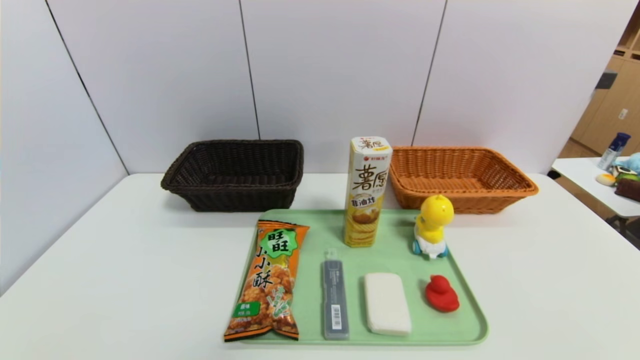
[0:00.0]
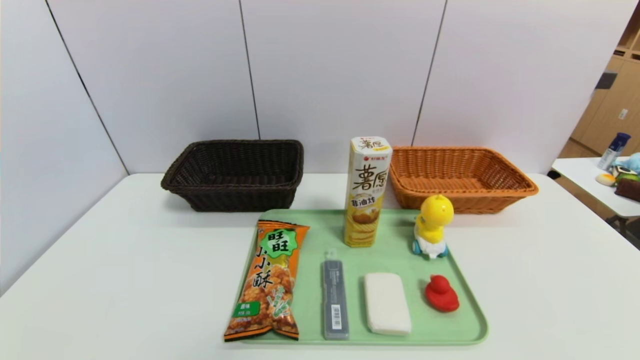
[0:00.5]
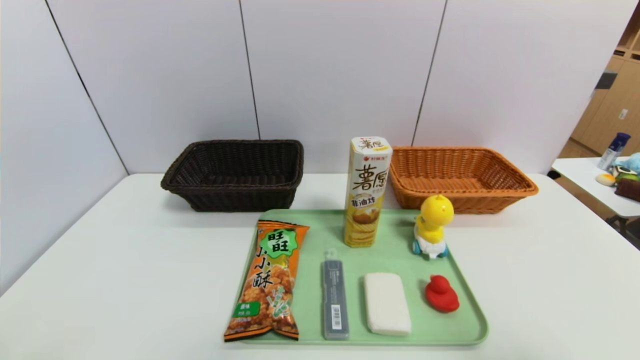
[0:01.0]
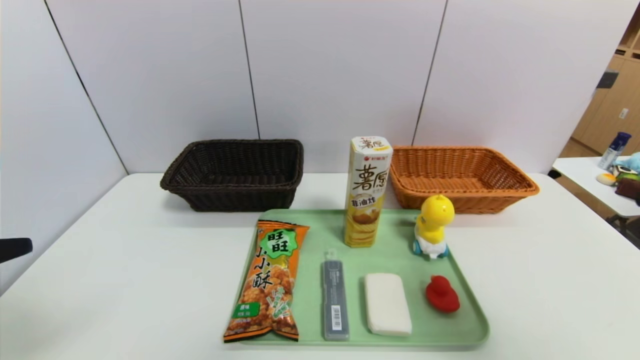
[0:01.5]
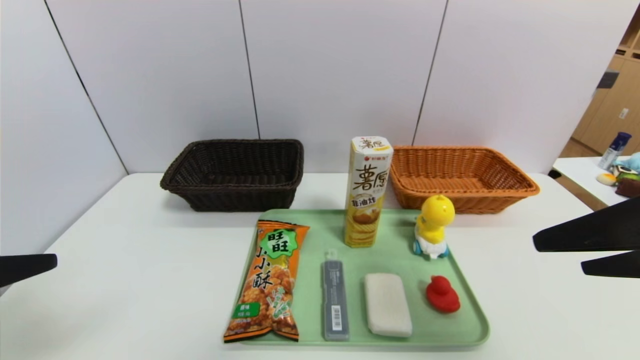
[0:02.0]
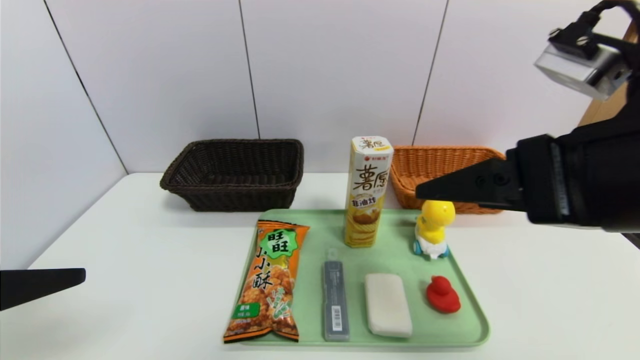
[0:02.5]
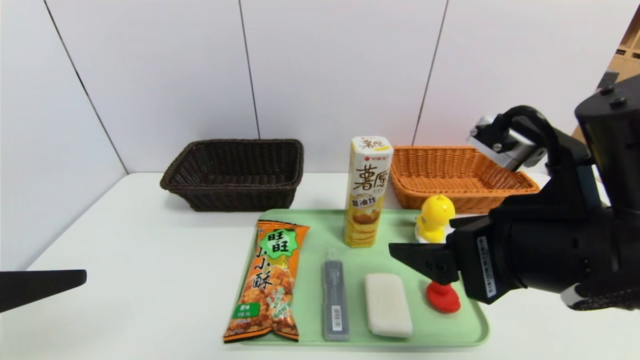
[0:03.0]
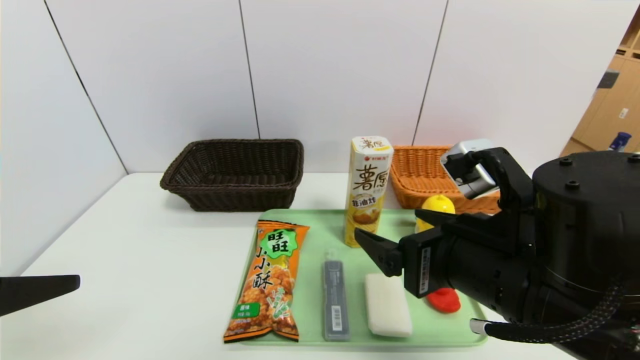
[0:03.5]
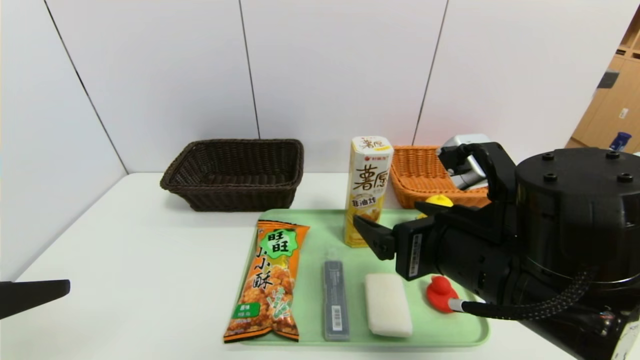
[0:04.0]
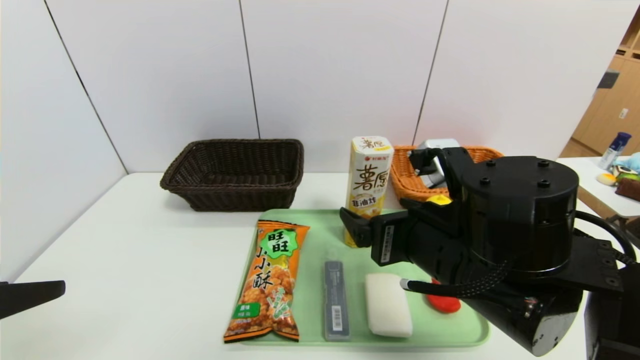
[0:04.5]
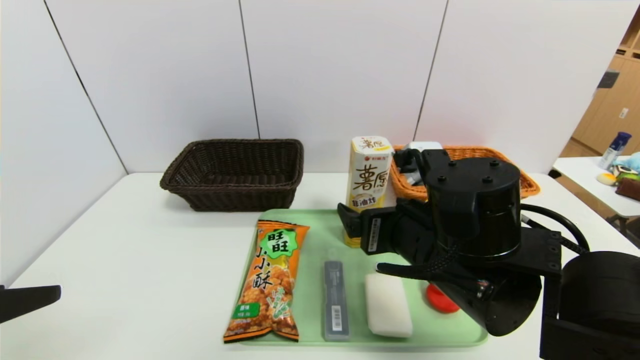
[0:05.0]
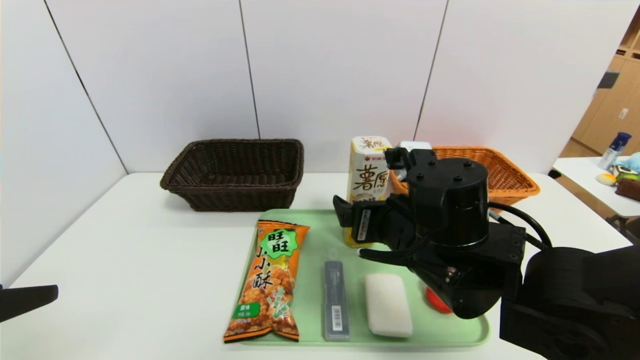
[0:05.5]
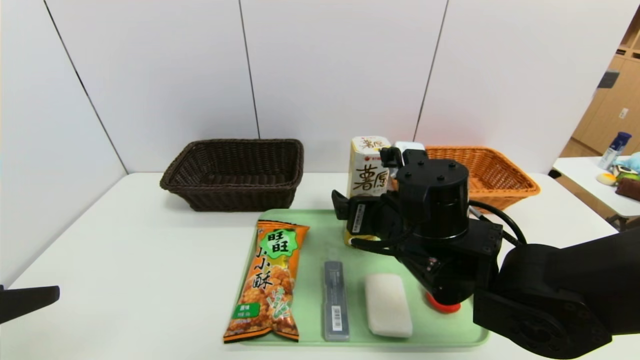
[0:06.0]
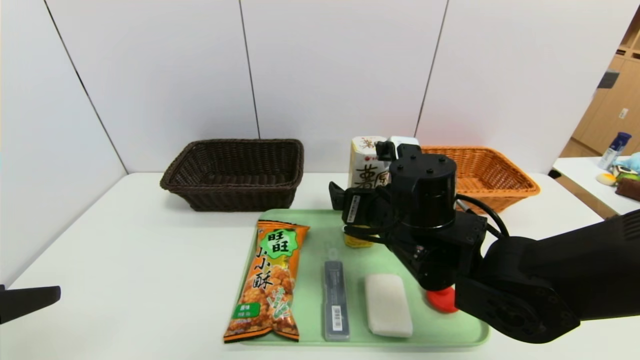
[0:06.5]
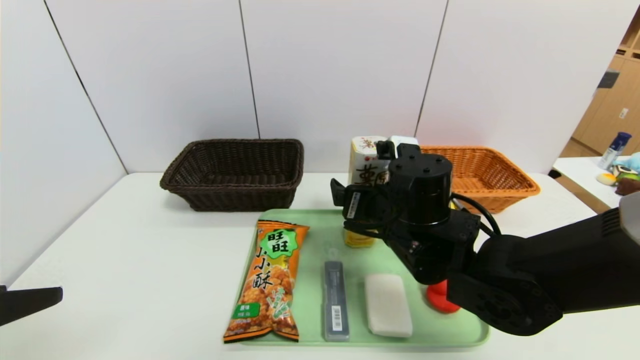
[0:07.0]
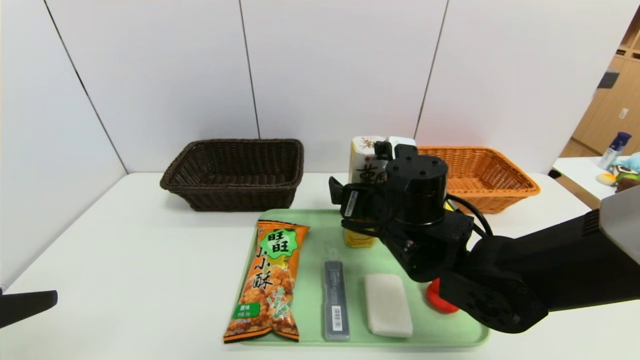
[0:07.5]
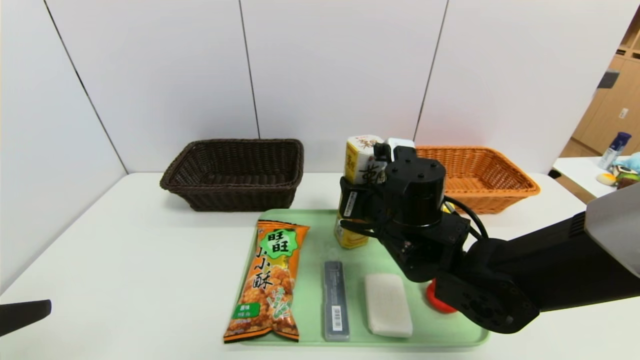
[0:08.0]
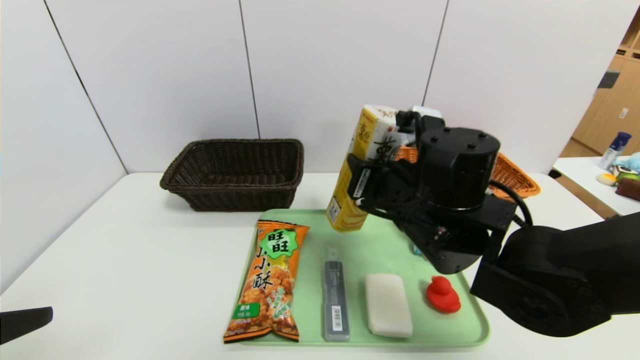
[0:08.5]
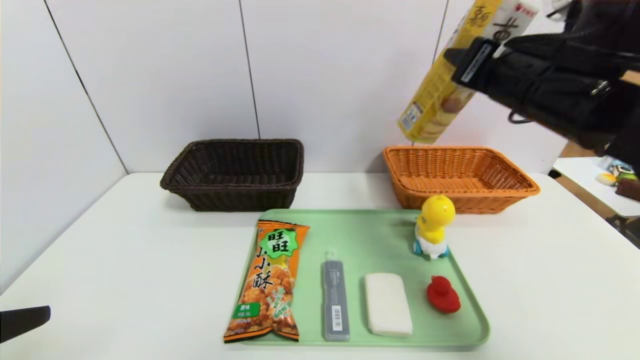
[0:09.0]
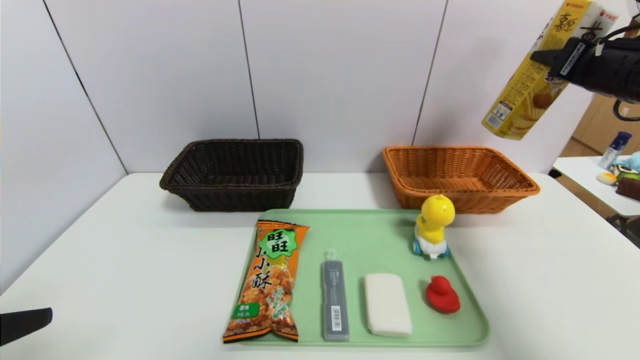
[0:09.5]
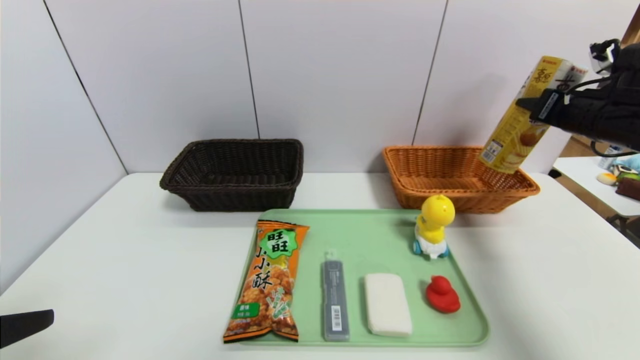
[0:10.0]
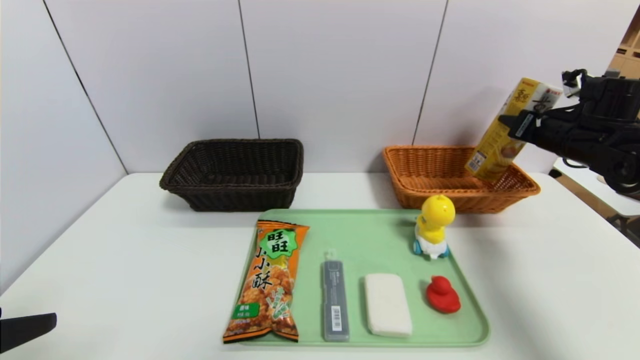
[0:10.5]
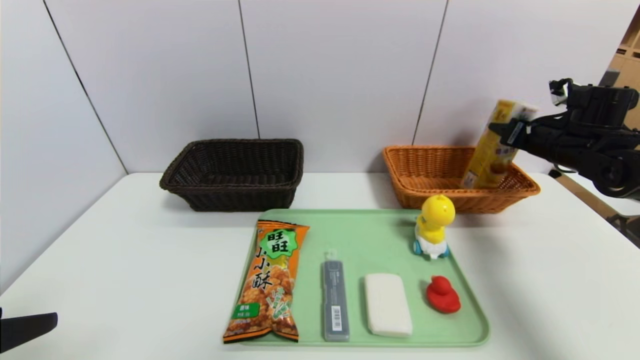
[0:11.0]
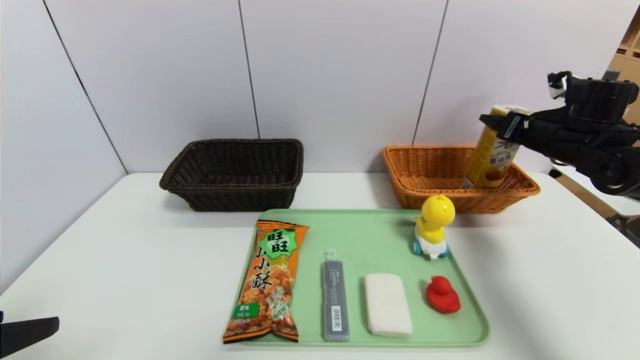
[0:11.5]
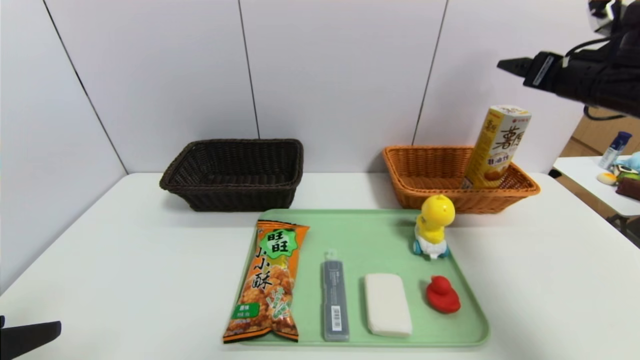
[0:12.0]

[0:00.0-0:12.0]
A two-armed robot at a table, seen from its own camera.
Task of the whole recording: place the food in the right basket with the right gripper, and place the non food items in the left basket with the left gripper.
Step, 0:00.0 to 0:11.0: Grasp the potato chips and put it in the right basket.
0:00.0 to 0:02.0: The right gripper shifts about 30 cm upward and forward. Meanwhile the left gripper goes approximately 20 cm upward.
0:02.0 to 0:04.0: The right gripper goes roughly 15 cm downward, to the left and forward.
0:04.0 to 0:06.0: The right gripper travels forward by some 10 cm.
0:06.0 to 0:08.0: The right gripper closes up.
0:08.0 to 0:10.0: The right gripper is displaced to the right by about 30 cm.
0:10.0 to 0:12.0: The right gripper shifts some 5 cm upward, and opens.

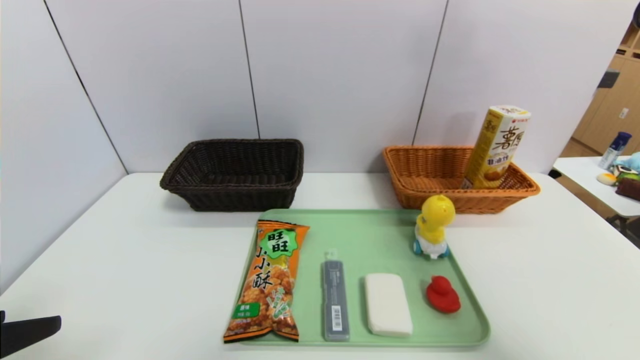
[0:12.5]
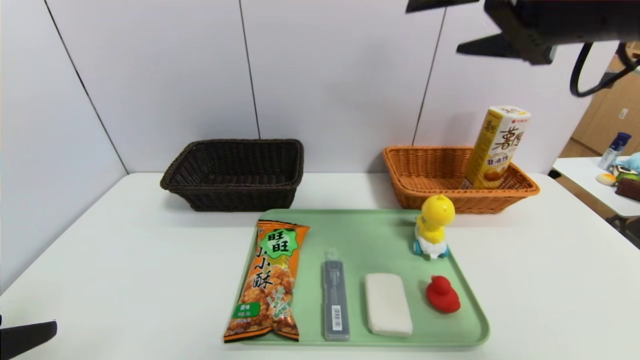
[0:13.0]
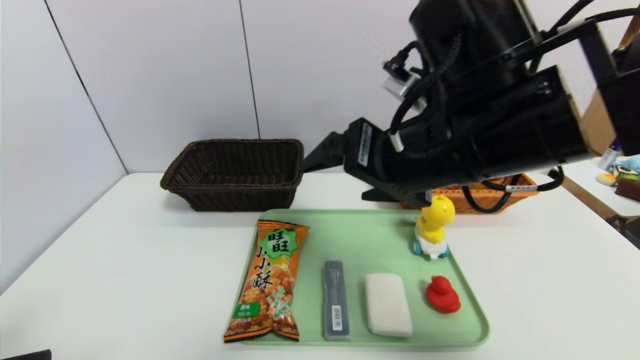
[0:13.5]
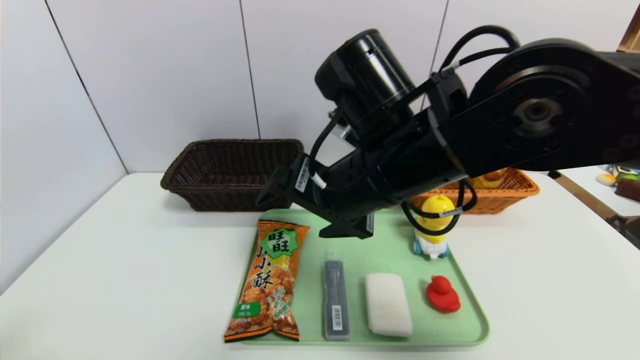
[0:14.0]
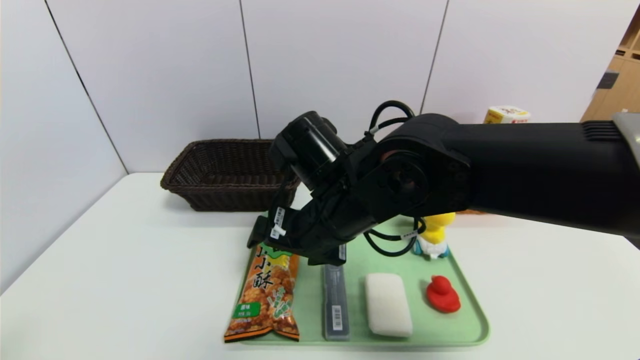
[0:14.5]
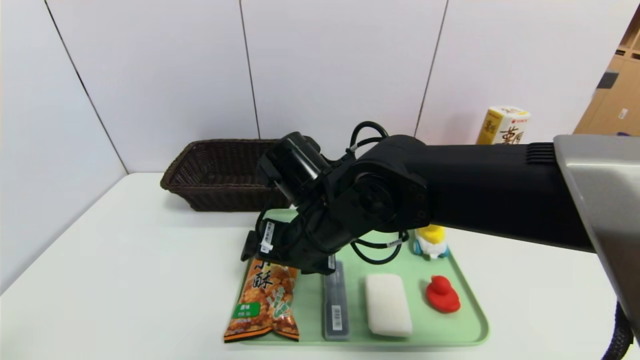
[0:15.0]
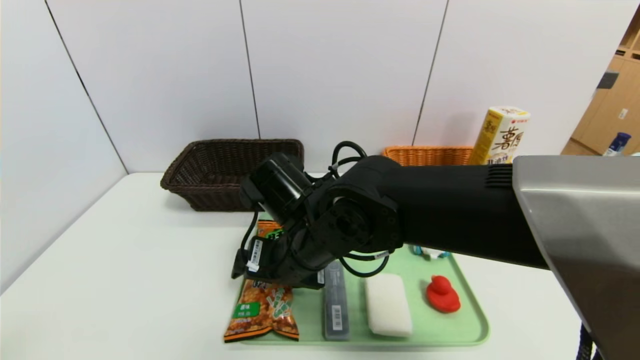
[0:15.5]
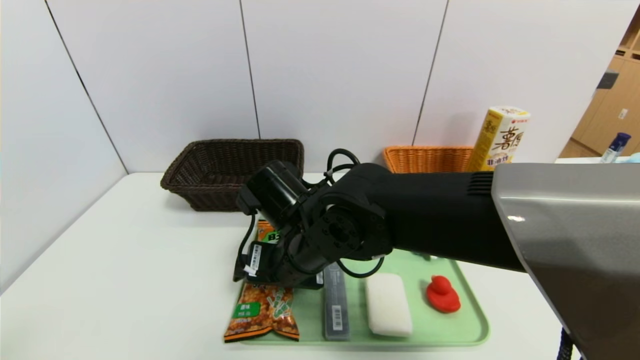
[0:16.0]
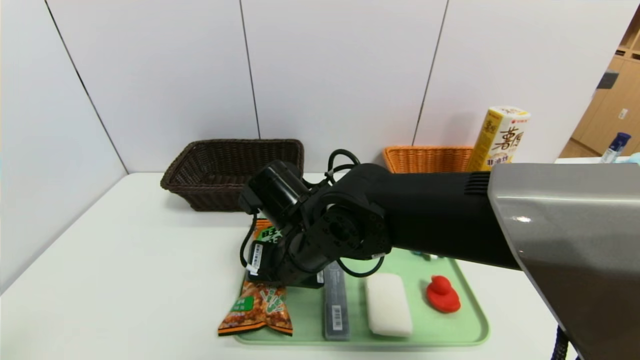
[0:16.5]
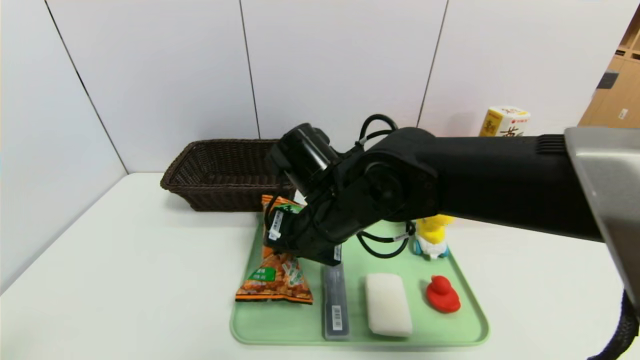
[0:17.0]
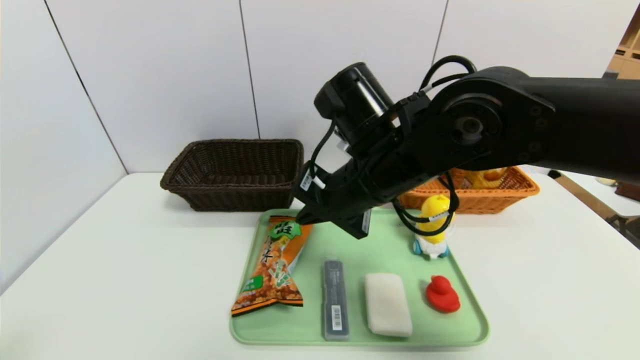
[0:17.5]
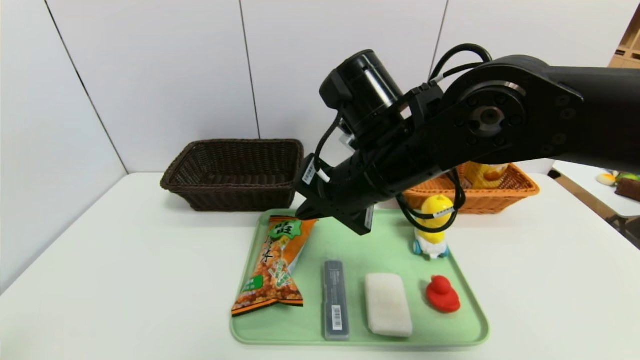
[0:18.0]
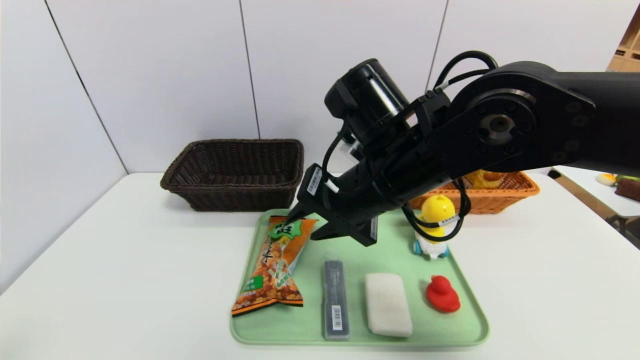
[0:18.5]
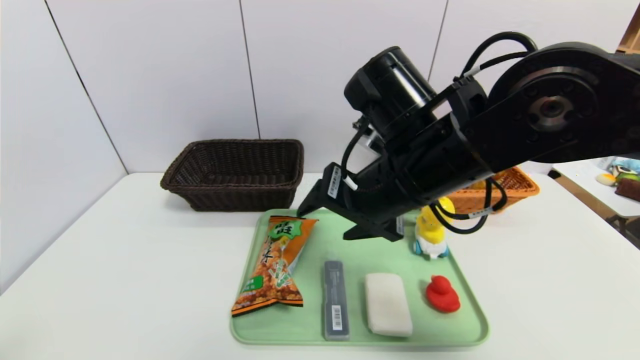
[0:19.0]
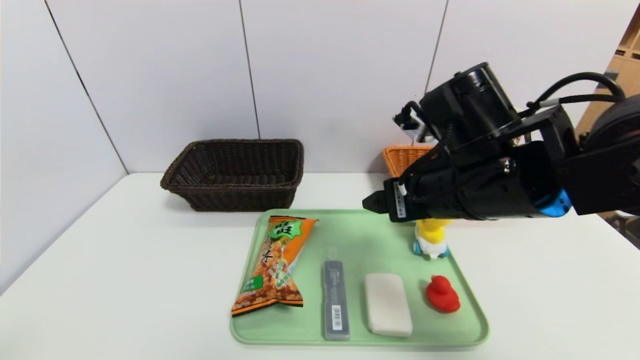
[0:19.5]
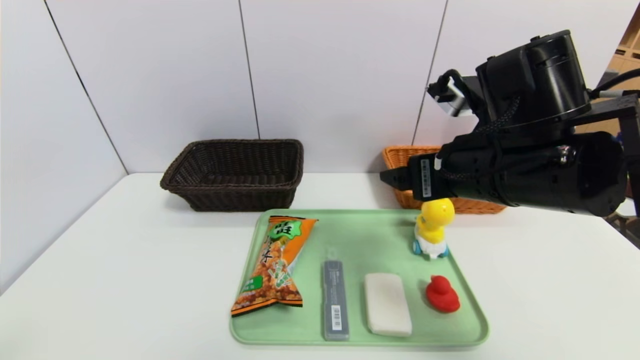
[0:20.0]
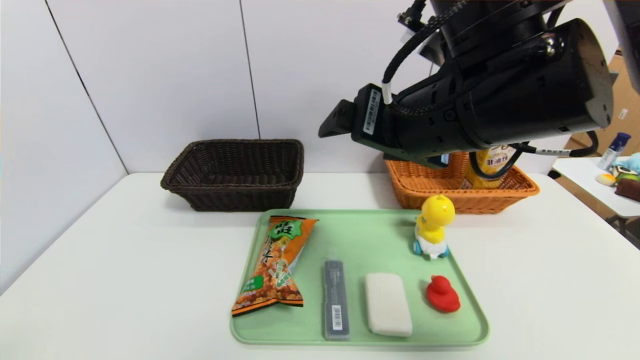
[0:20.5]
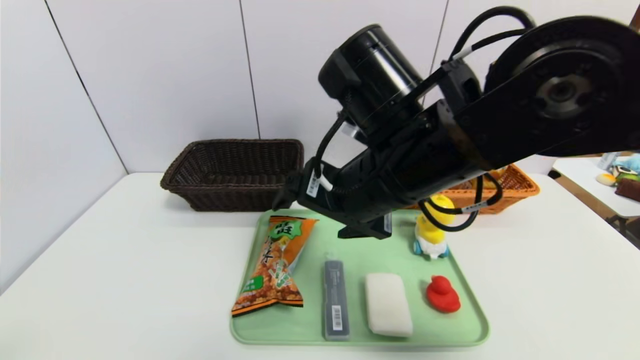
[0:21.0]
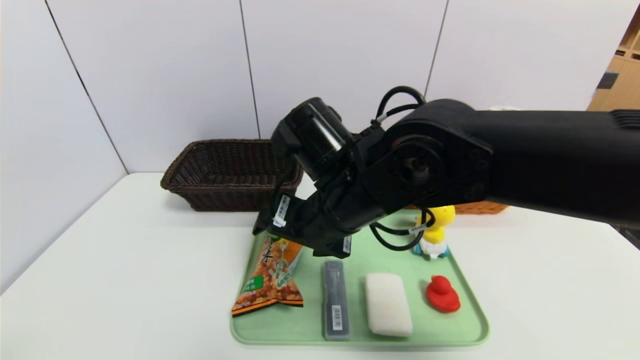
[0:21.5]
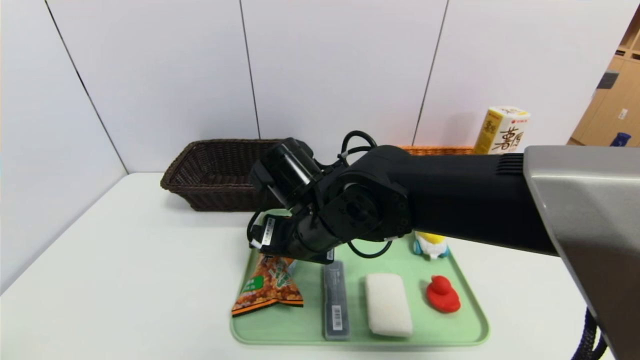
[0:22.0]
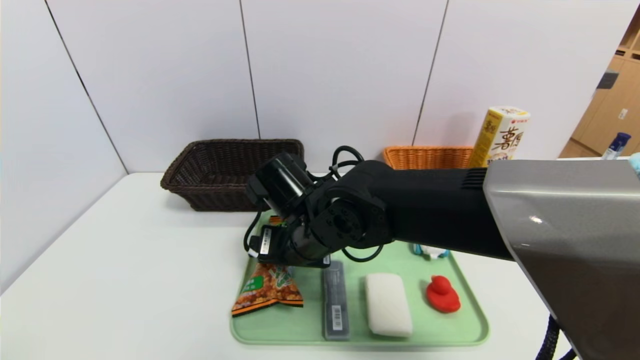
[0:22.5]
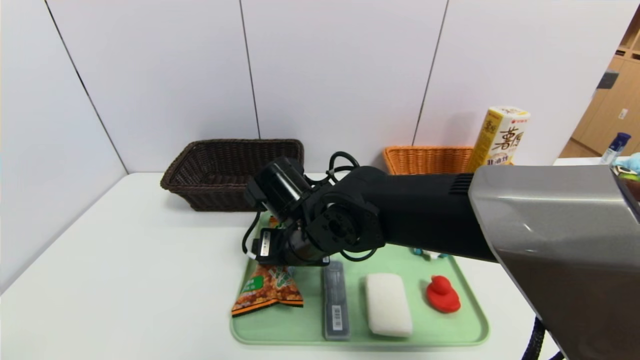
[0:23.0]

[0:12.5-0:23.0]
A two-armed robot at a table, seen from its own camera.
Task of the whole recording: place the food in the right basket with the right gripper, and place the non food items in the left basket with the left gripper.
0:12.5 to 0:14.5: The right gripper is displaced to the left and downward by about 35 cm.
0:14.5 to 0:16.5: The right gripper is displaced downward by roughly 5 cm, and closes up.
0:16.5 to 0:19.0: The right gripper goes approximately 15 cm upward and to the right, and opens up.
0:19.0 to 0:21.0: The right gripper goes to the right and returns, some 10 cm each way.
0:21.0 to 0:23.0: The right gripper heads downward and to the left, covering some 15 cm.
